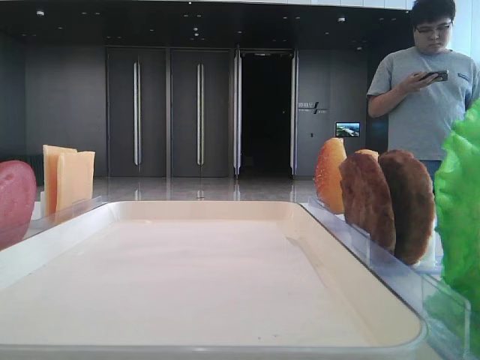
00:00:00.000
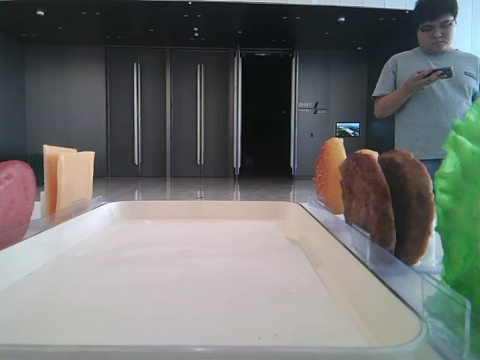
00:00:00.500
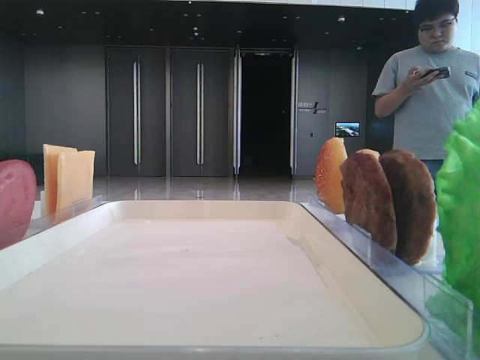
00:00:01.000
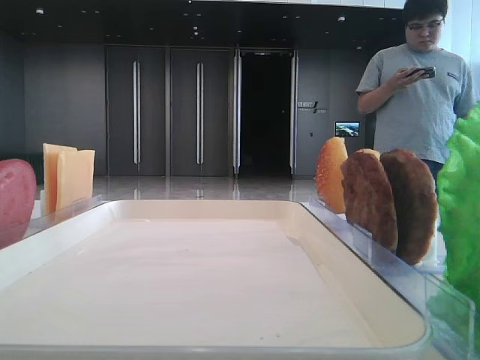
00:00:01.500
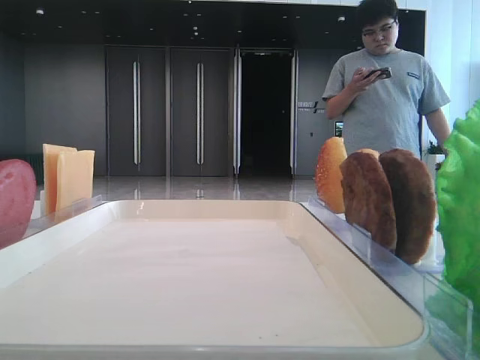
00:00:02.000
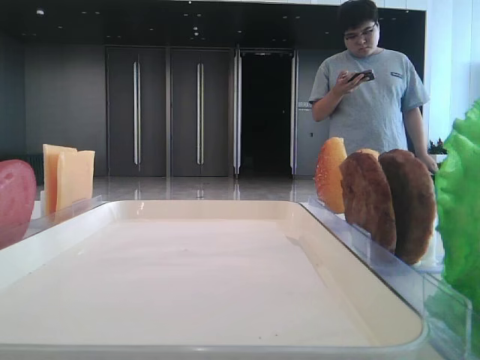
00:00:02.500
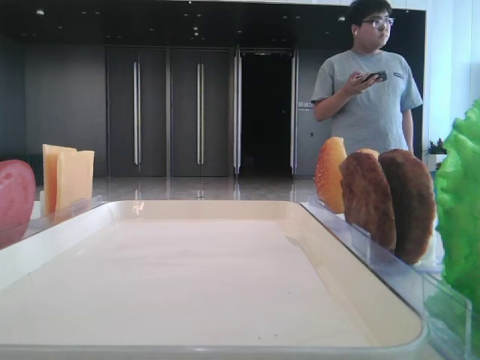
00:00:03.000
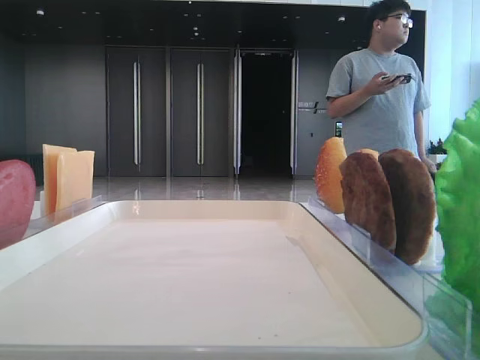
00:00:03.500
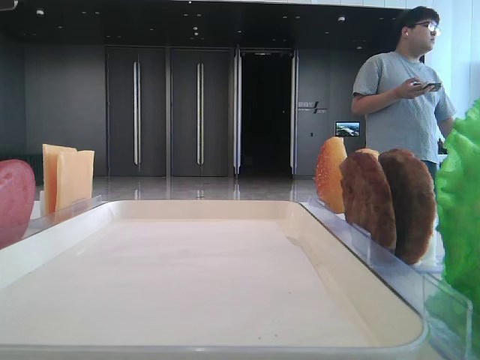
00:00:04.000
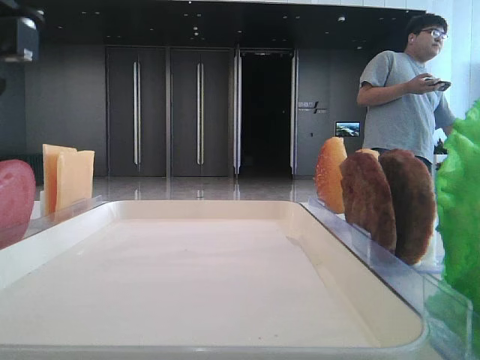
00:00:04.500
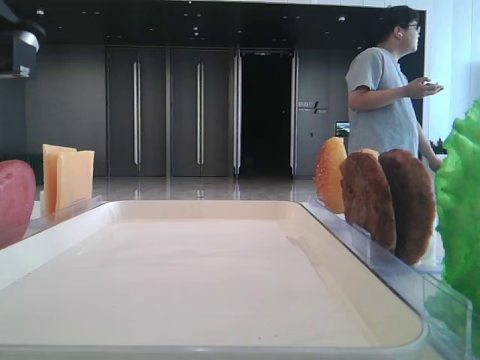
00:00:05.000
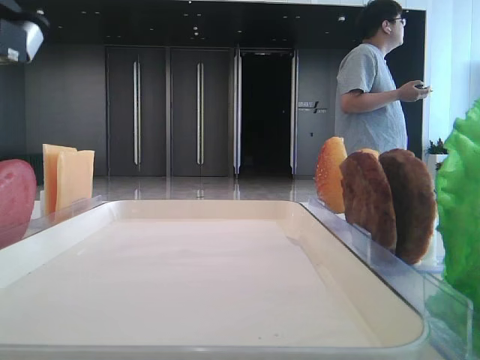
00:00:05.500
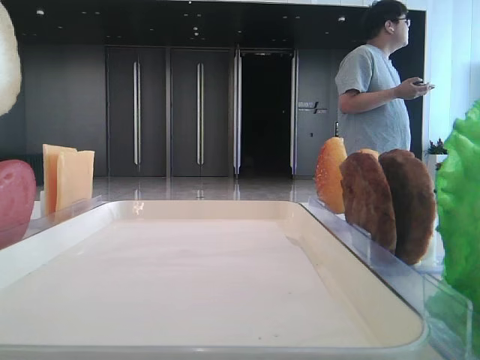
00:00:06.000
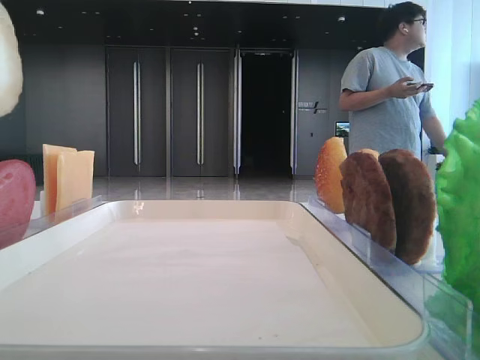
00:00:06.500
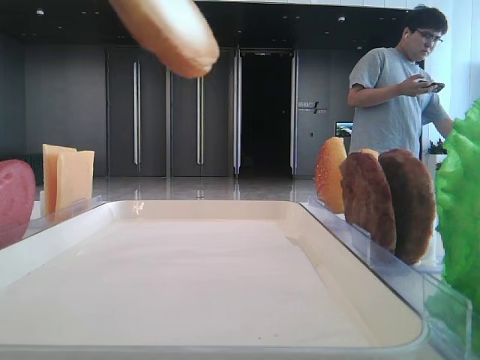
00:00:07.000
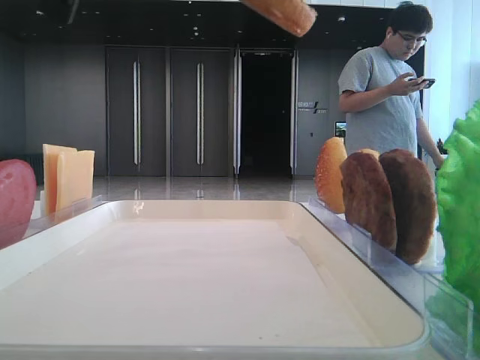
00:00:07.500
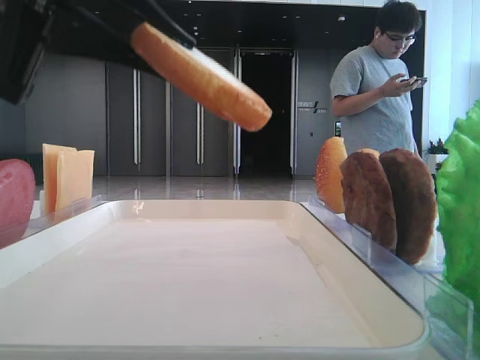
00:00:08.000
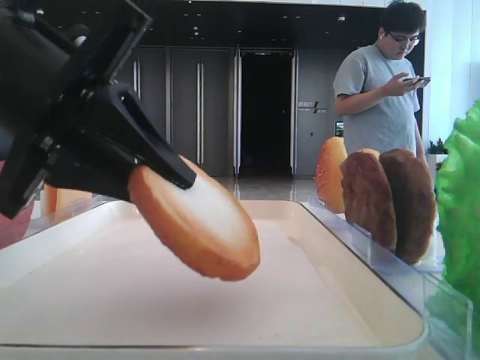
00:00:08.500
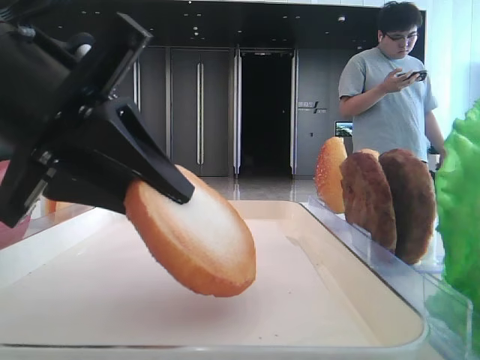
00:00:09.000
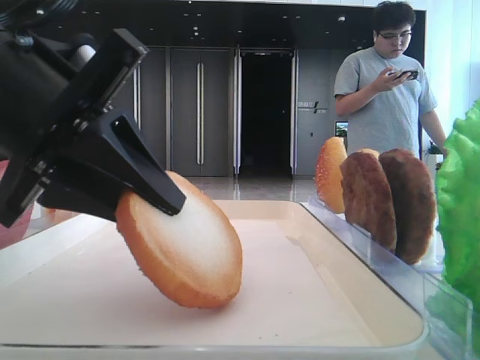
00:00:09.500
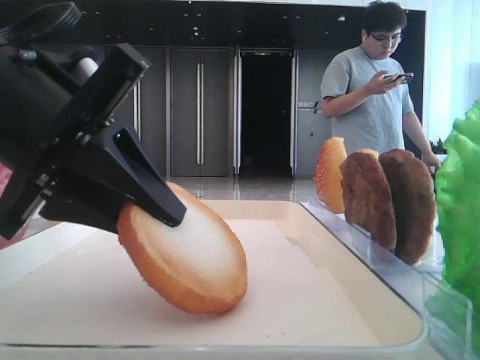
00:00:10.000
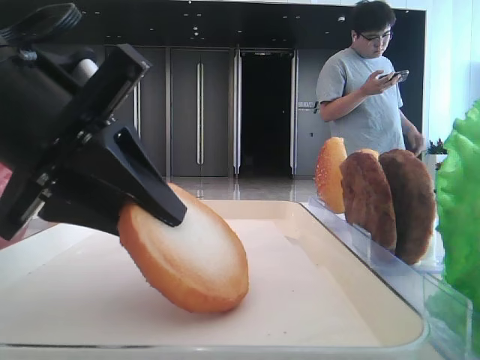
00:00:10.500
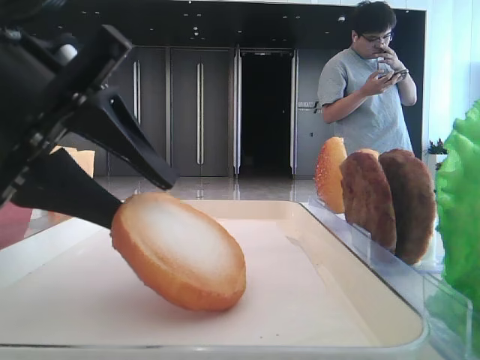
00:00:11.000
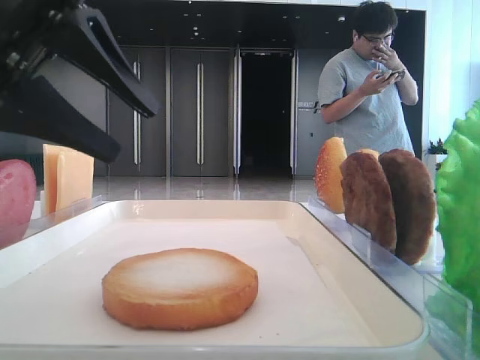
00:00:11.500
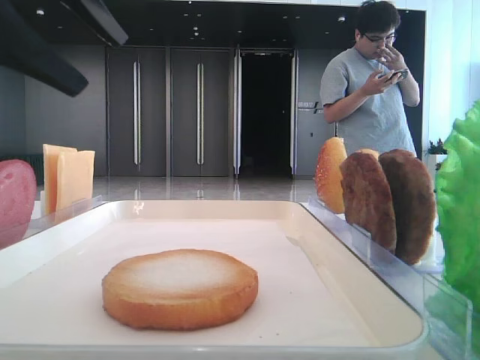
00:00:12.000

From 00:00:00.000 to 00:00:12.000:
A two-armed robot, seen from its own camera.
Step, from 00:00:00.000 to 00:00:05.000: Pick up the bottom bread with the left hand.
Step, from 00:00:05.500 to 00:00:11.000: Place the bread on the tray with the left hand.
From 00:00:04.000 to 00:00:06.000: The left gripper is displaced upward by approximately 5 cm, and closes up.
From 00:00:06.000 to 00:00:08.000: The left gripper shifts approximately 10 cm downward.
From 00:00:08.000 to 00:00:10.000: The left gripper goes about 10 cm downward.
From 00:00:10.000 to 00:00:12.000: The left gripper travels upward by about 10 cm, and opens up.

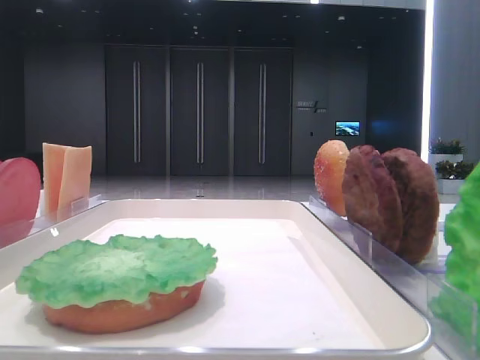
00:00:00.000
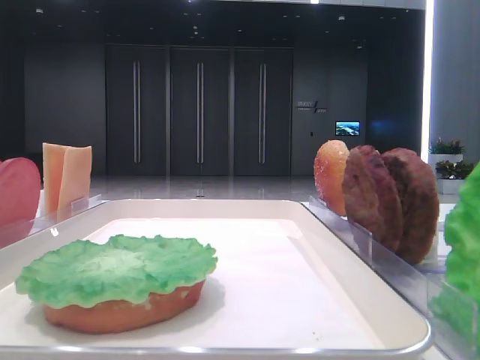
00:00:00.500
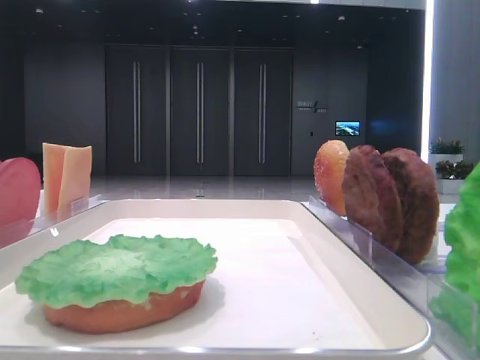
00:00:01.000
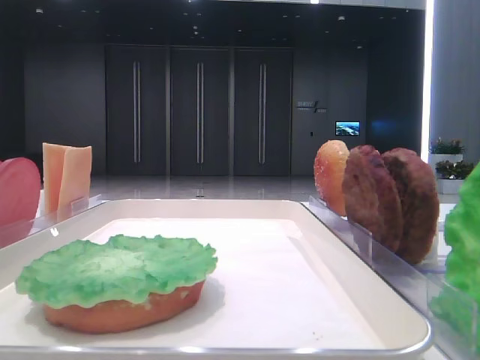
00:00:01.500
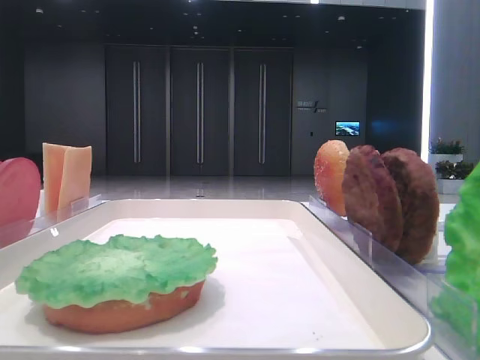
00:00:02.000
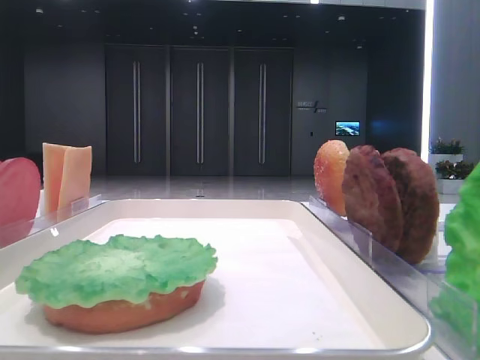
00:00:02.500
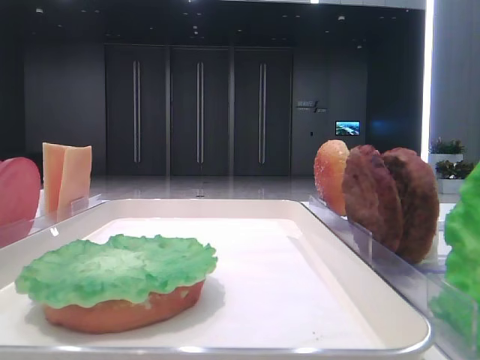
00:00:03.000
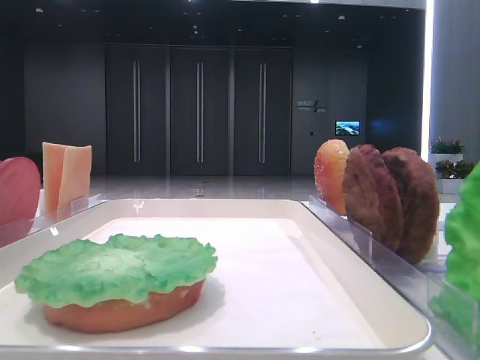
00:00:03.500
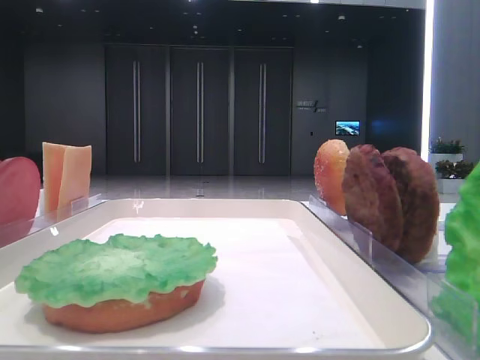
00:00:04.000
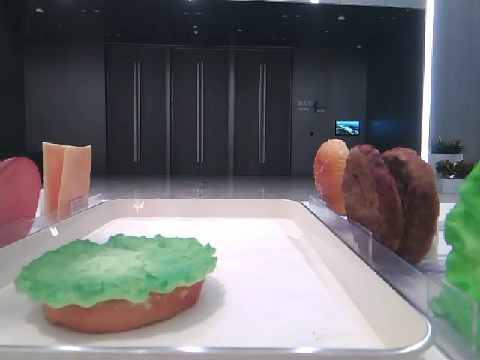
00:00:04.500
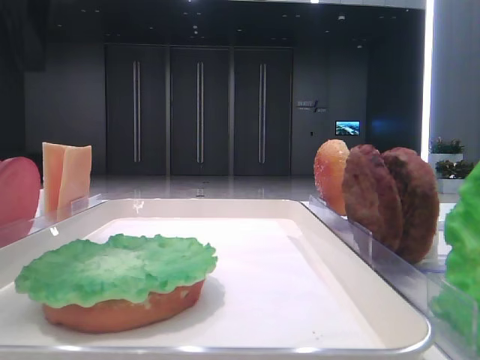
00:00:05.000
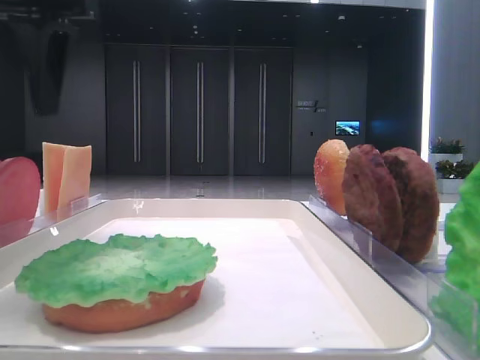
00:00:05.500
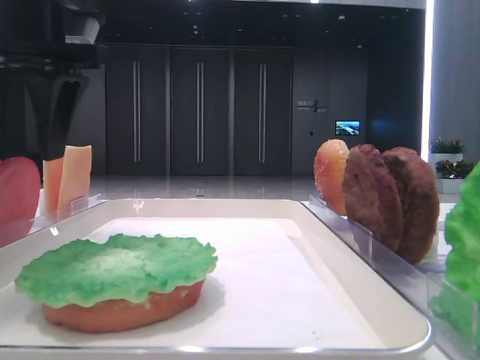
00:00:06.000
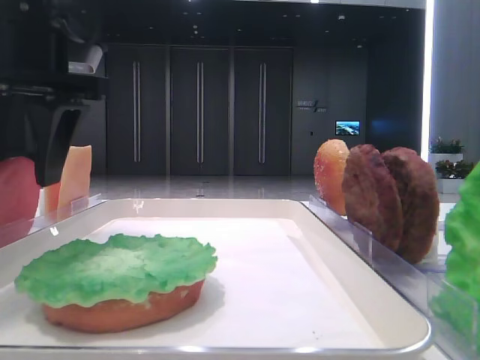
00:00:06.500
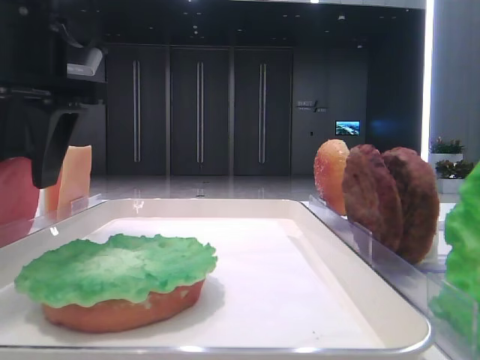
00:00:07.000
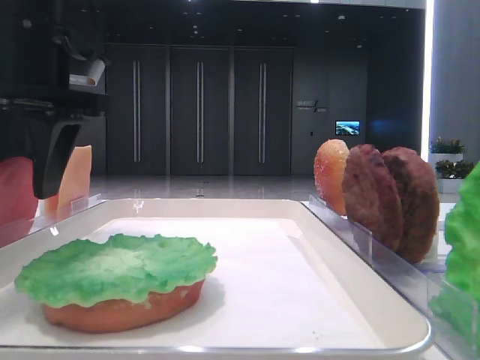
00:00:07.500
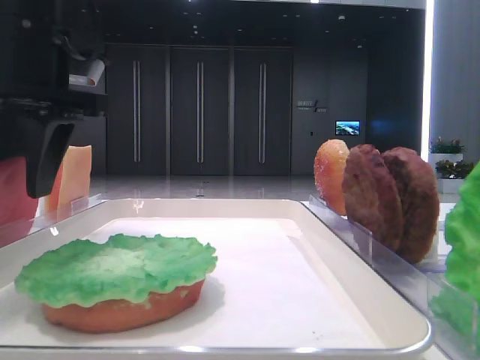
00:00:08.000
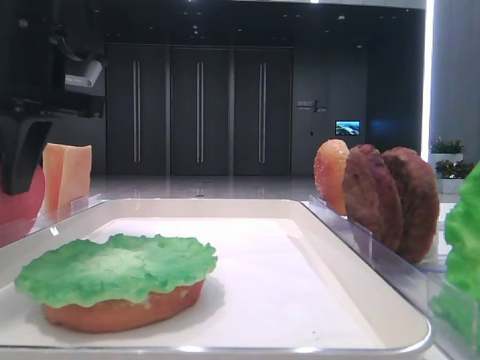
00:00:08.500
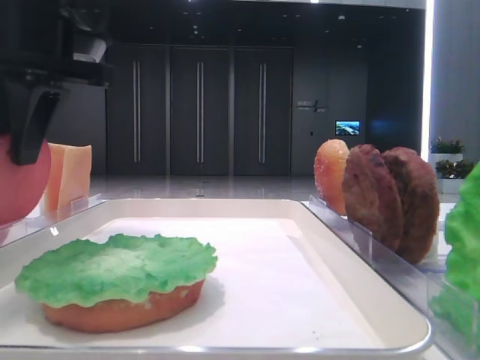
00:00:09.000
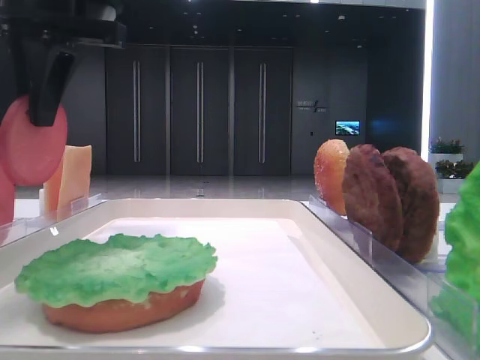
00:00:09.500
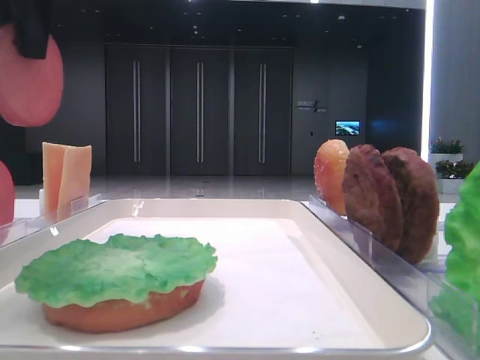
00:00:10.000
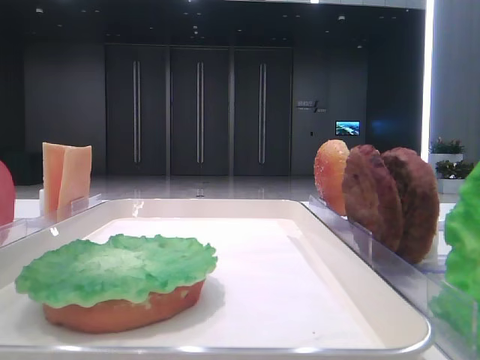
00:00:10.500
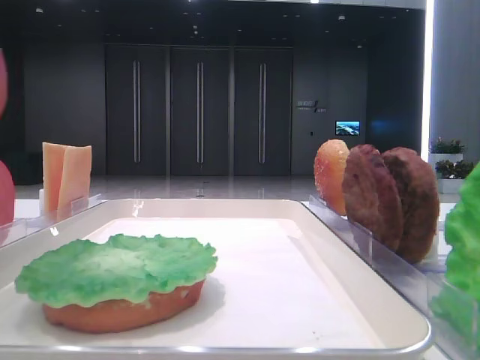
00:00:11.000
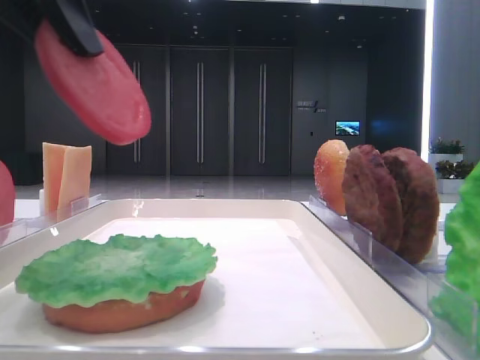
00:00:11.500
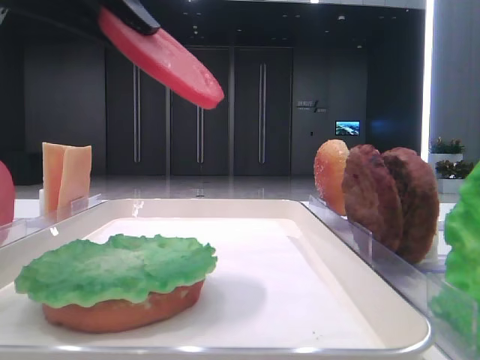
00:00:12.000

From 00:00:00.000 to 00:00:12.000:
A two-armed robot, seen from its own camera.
Step, from 00:00:00.000 to 00:00:08.000: Pick up the tomato slice with the left hand.
From 00:00:04.000 to 00:00:06.000: The left gripper travels to the right and downward by some 10 cm.
From 00:00:06.000 to 00:00:08.000: The grippers stay close to where they were, moving slightly.
From 00:00:08.000 to 00:00:10.000: The left gripper is displaced upward by approximately 10 cm, and closes.
From 00:00:10.000 to 00:00:12.000: The left gripper moves backward and downward, about 10 cm.

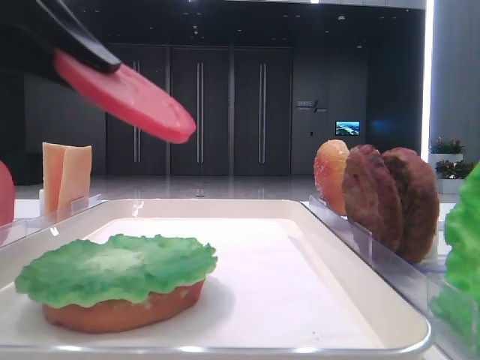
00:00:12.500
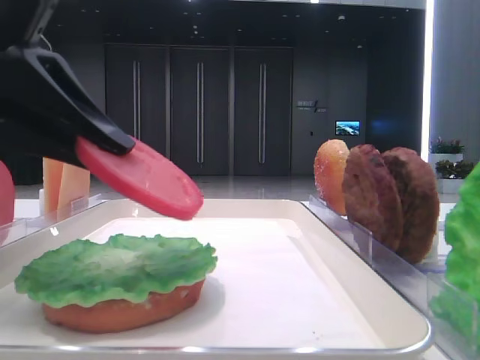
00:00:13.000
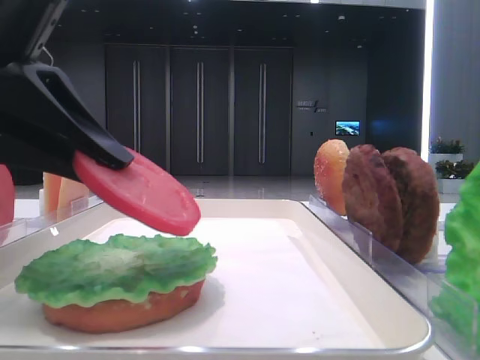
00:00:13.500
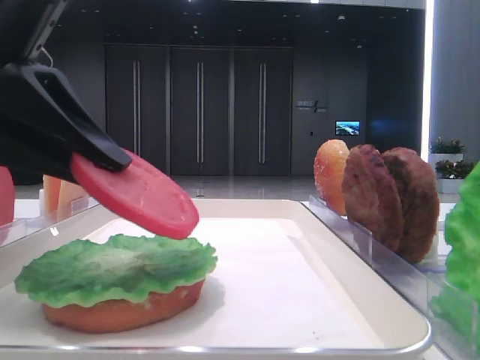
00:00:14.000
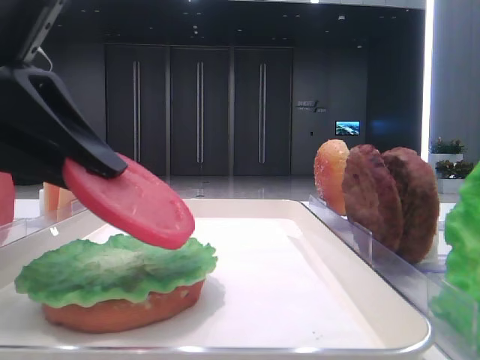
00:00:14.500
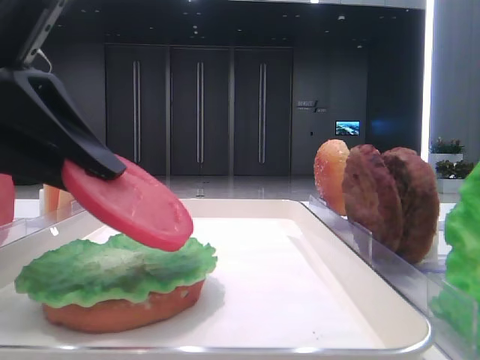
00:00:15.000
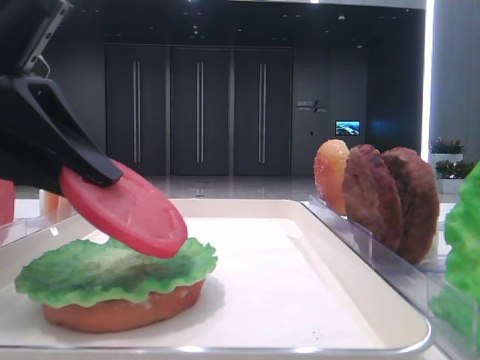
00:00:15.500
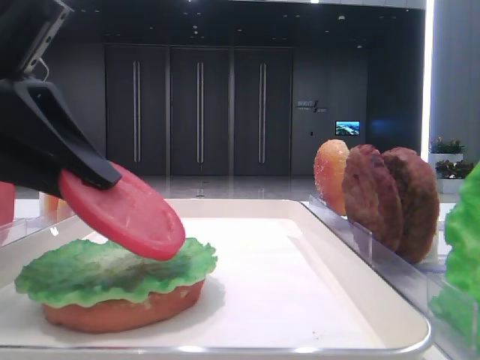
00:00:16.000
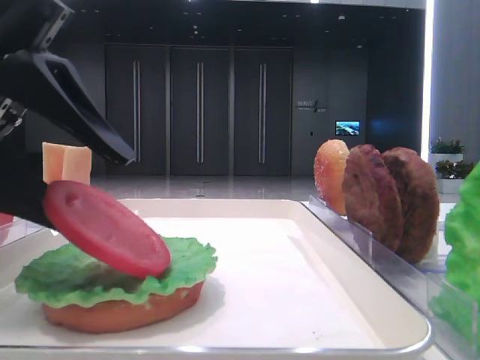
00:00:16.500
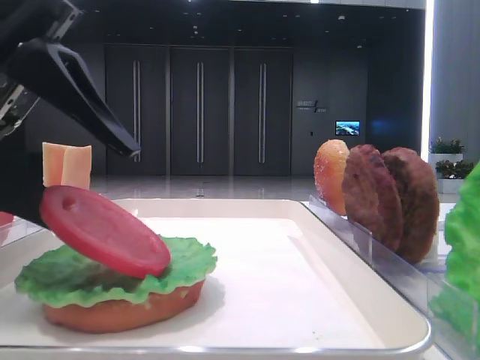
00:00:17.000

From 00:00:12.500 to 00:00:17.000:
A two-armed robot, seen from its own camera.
From 00:00:12.500 to 00:00:14.500: The left gripper moves downward, approximately 5 cm.
From 00:00:14.500 to 00:00:17.000: The left gripper opens up.
